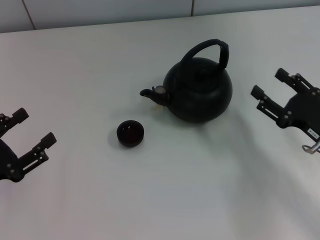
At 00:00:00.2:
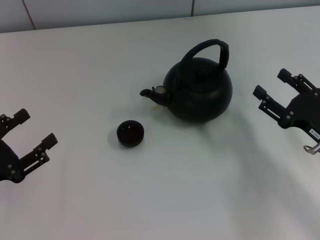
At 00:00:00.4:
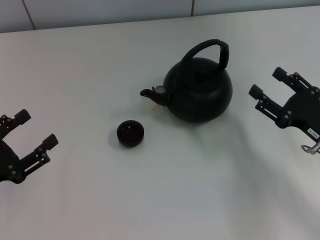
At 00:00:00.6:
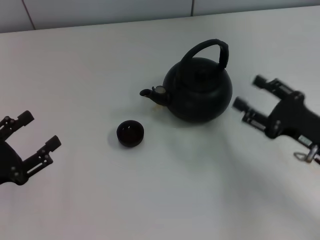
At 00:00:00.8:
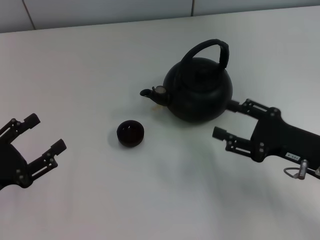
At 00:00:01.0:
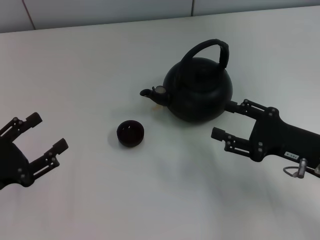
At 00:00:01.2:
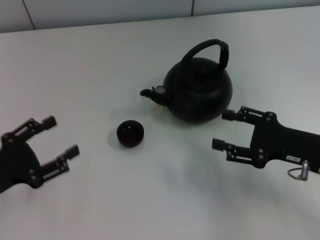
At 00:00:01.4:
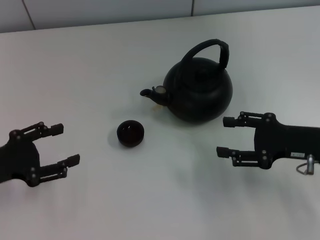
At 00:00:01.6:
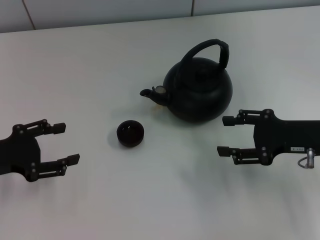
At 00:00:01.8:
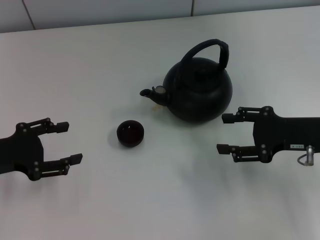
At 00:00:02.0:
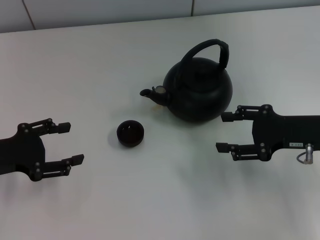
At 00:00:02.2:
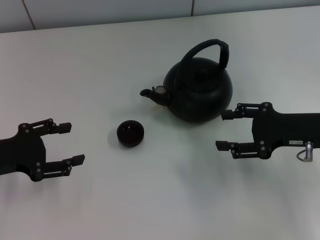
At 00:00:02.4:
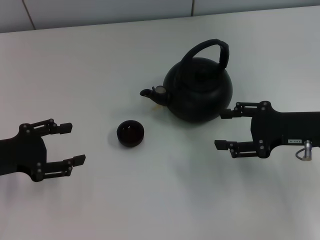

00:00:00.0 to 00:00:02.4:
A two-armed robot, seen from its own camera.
Task of the whole recording: Grasp the handle of the teapot with one hand and pour tea into the teacup.
00:00:01.2 to 00:00:02.4: The left gripper is displaced forward by roughly 5 cm. The right gripper changes place by about 5 cm.
